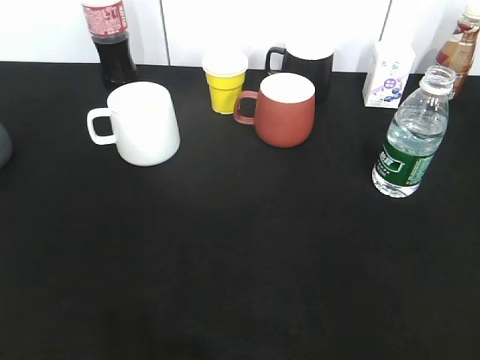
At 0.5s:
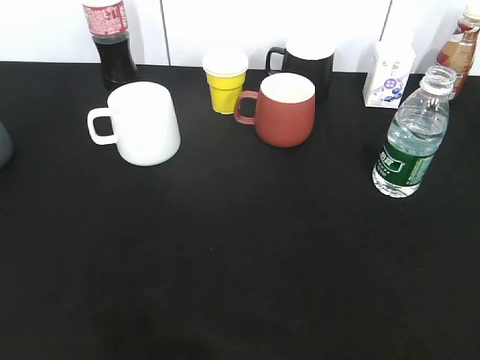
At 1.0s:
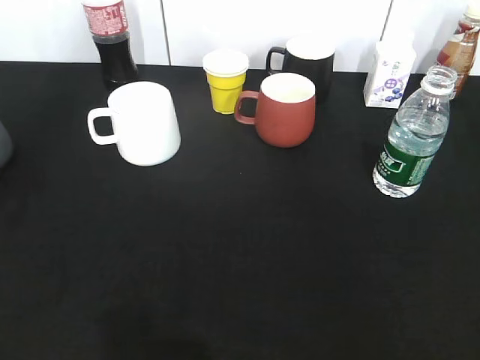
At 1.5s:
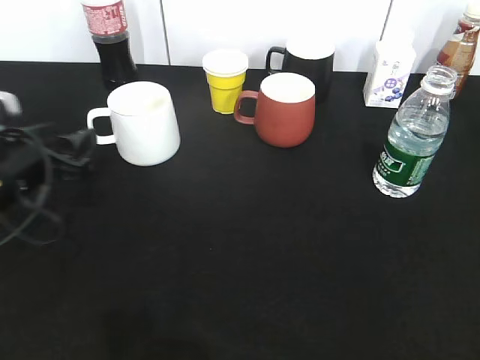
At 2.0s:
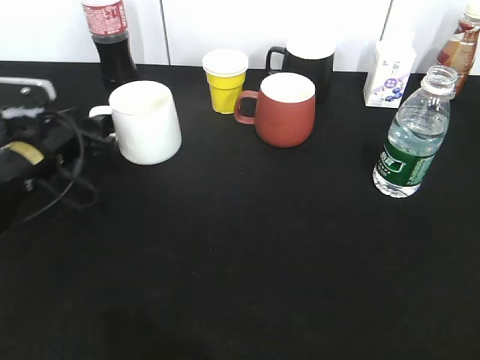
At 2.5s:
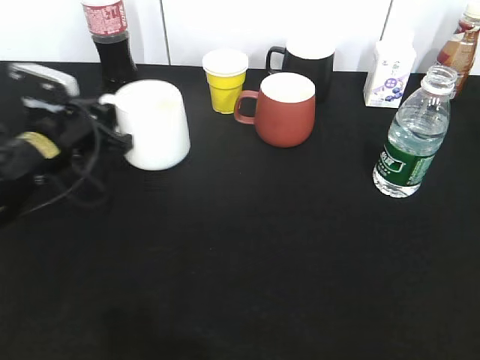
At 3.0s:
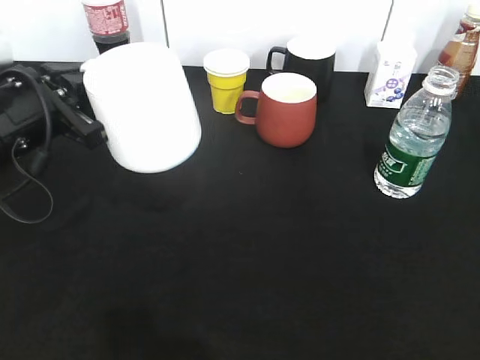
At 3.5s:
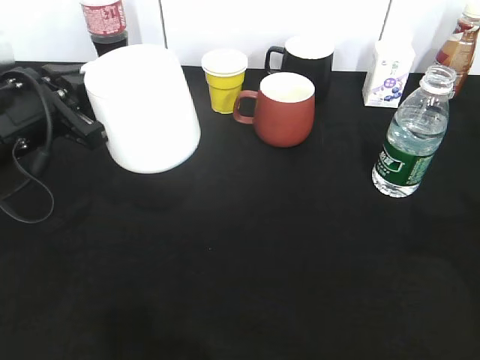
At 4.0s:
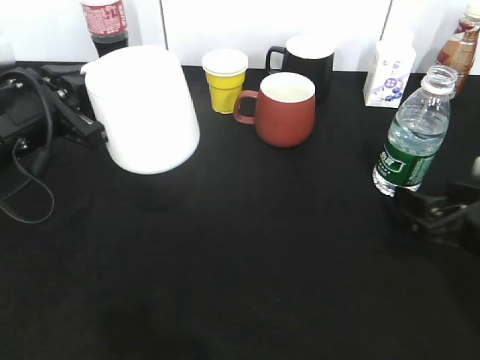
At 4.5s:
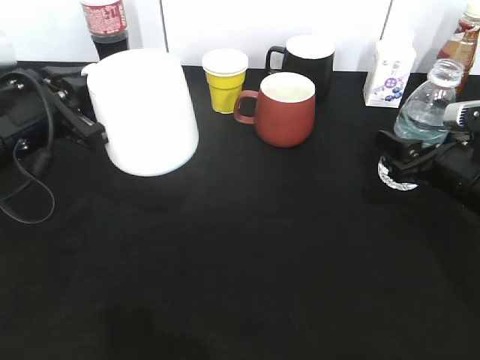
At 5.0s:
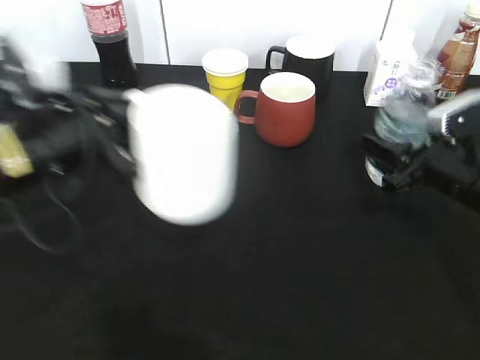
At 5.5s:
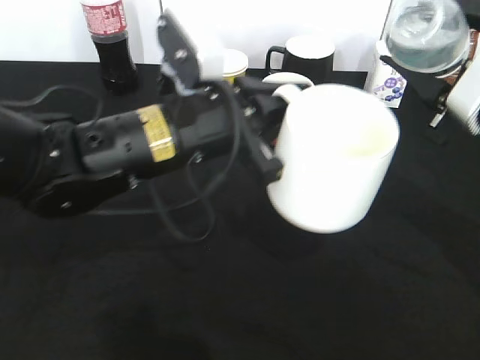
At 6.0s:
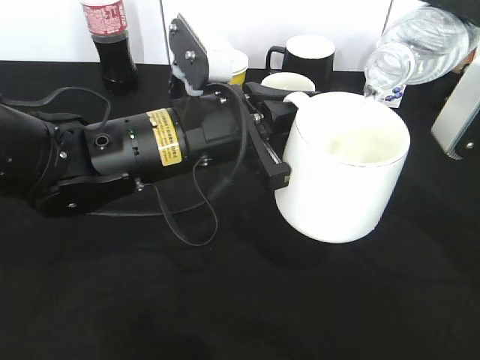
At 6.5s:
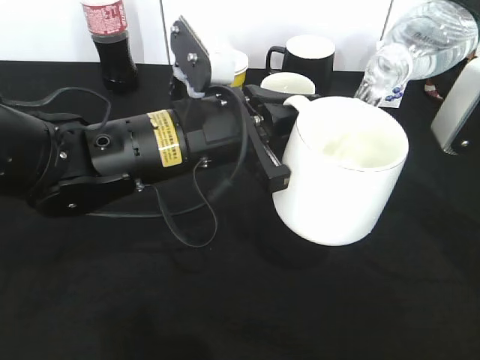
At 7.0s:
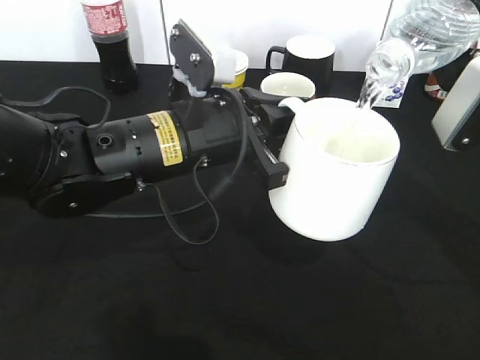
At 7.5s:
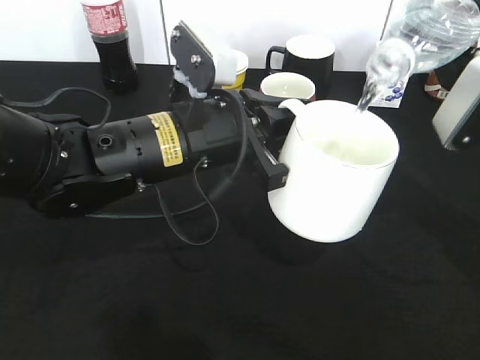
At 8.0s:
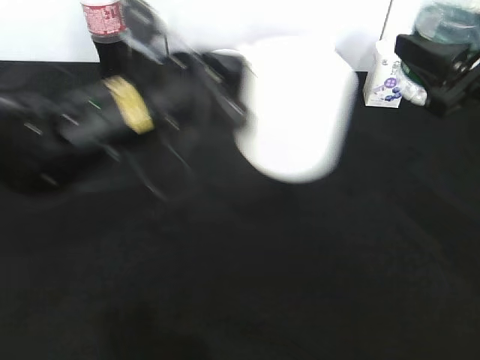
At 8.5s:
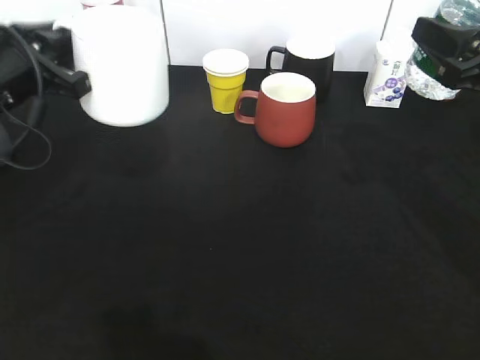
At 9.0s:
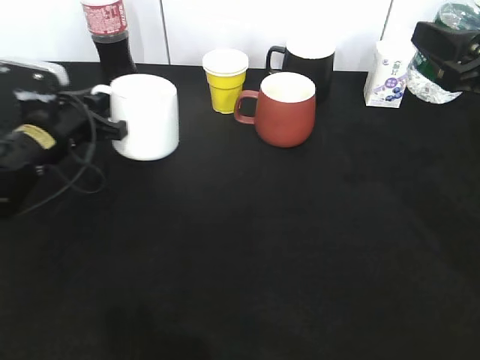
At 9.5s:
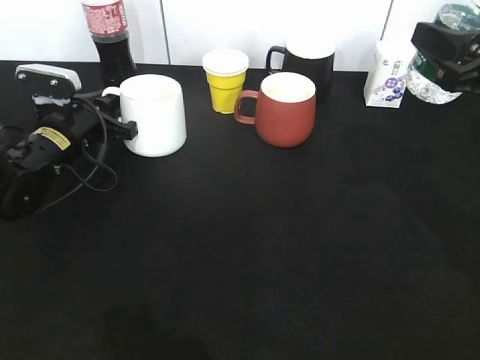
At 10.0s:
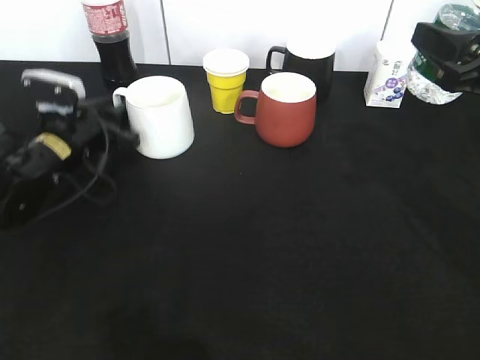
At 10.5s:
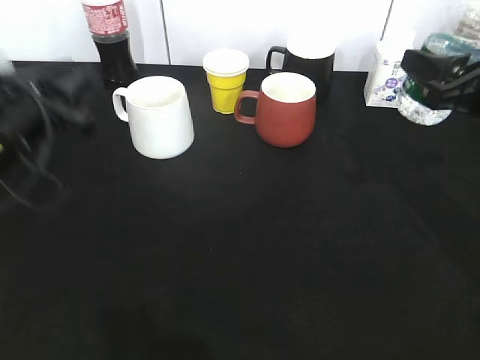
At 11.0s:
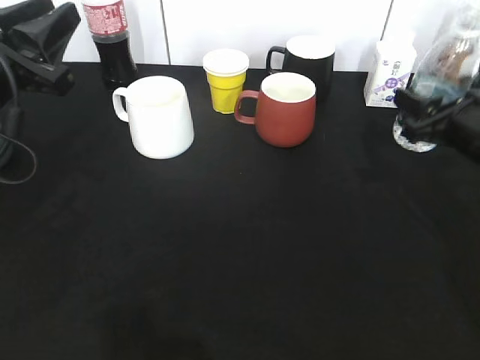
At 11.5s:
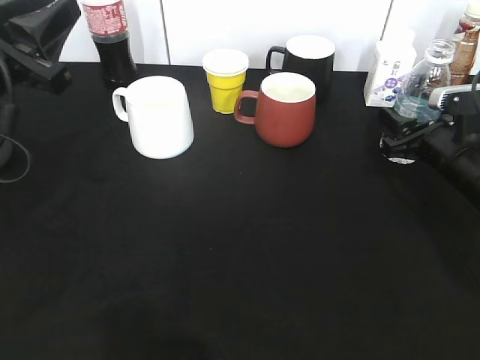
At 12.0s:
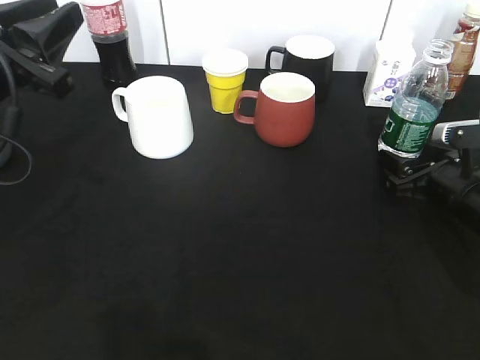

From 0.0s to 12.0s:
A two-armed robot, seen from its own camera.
Step, from 0.0s to 2.0s: Grasp the white cup with left gripper.
Step, from 2.5s to 3.0s: Lift the white cup with left gripper.
Step, from 3.5s to 4.5s: Grasp the bottle with water with right gripper.
Step, from 5.0s to 8.0s: Pour the water from bottle to cup with right gripper.
Step, from 8.5s to 10.0s: Place the white cup on the table with left gripper.
Step, from 10.5s to 11.5s: Place the water bottle on the table with right gripper.
From 0.0s to 2.0s: The left gripper moves forward and downward, roughly 35 cm.
From 2.0s to 4.0s: The left gripper heads upward and backward, covering some 10 cm, and closes. Meanwhile the right gripper goes about 30 cm forward and downward, and opens.
From 4.0s to 6.0s: The left gripper heads to the right, covering some 15 cm, while the right gripper shifts some 15 cm upward, and closes its fingers.
From 6.0s to 8.0s: The left gripper ends up roughly 5 cm from where it was.
From 8.0s to 10.0s: The left gripper heads to the left, downward and forward, covering some 20 cm, and opens up.
From 10.0s to 12.0s: The right gripper travels downward by some 15 cm, and opens; the left gripper goes about 20 cm upward and backward.

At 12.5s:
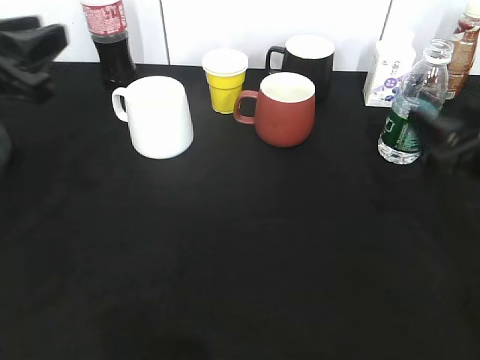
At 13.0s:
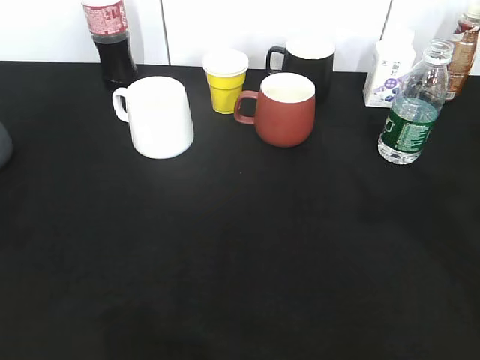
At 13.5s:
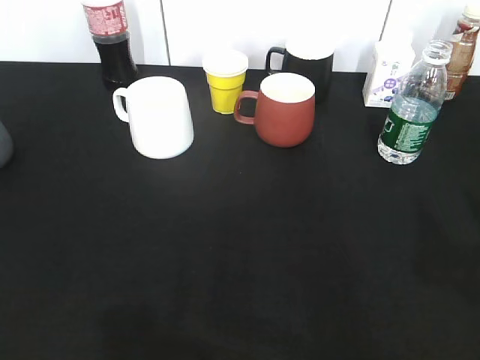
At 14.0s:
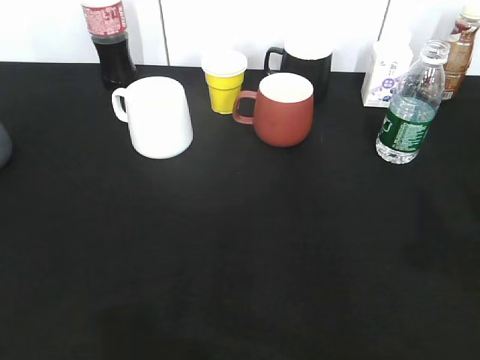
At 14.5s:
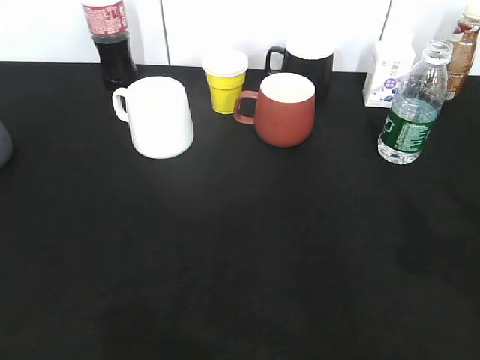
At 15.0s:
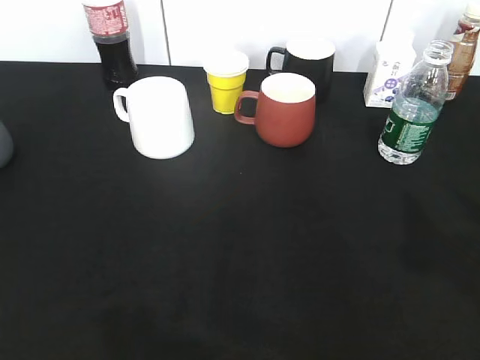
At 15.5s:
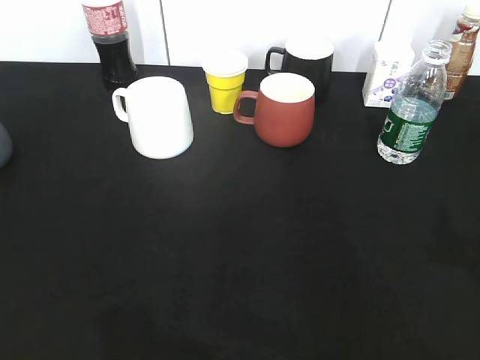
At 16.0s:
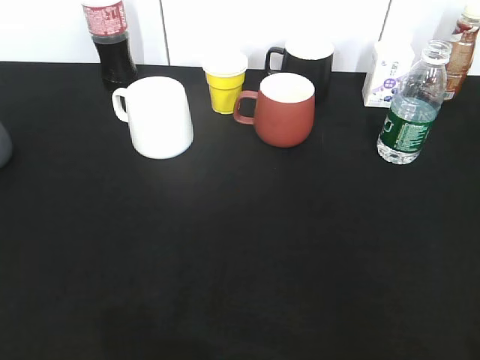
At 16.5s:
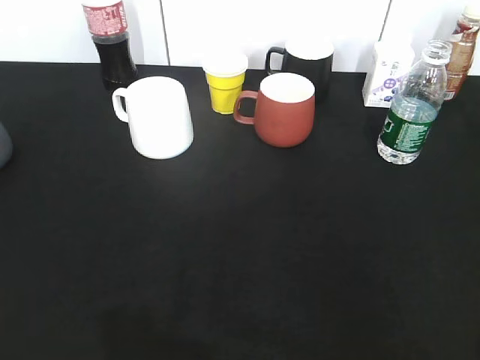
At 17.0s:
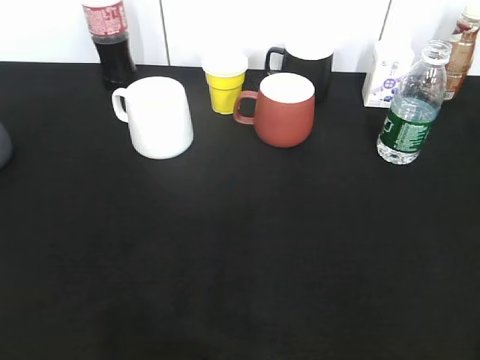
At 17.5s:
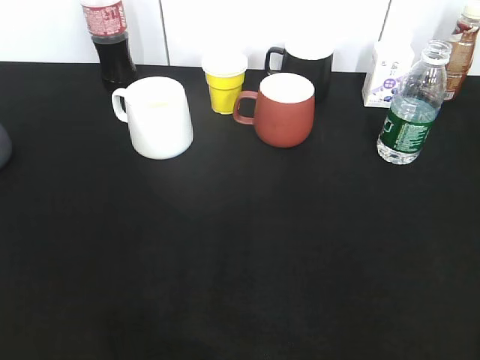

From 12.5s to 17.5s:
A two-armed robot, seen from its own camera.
From 12.5s to 15.0s: The left gripper moves backward, approximately 25 cm. Meanwhile the right gripper goes approximately 20 cm upward and backward.
From 15.0s to 17.5s: The right gripper shifts some 10 cm backward.

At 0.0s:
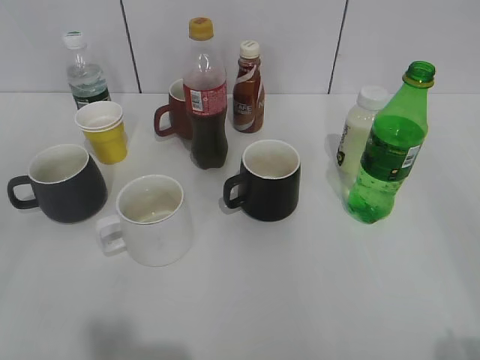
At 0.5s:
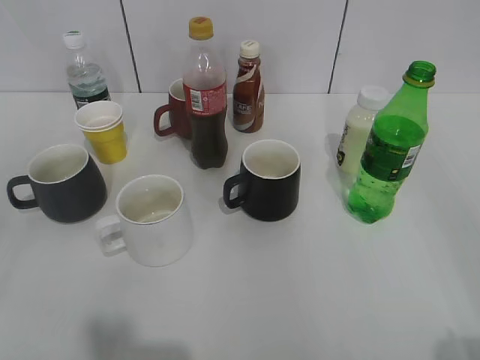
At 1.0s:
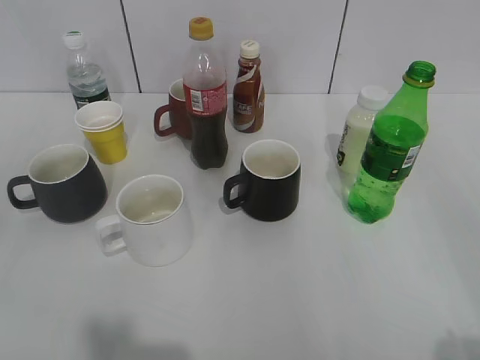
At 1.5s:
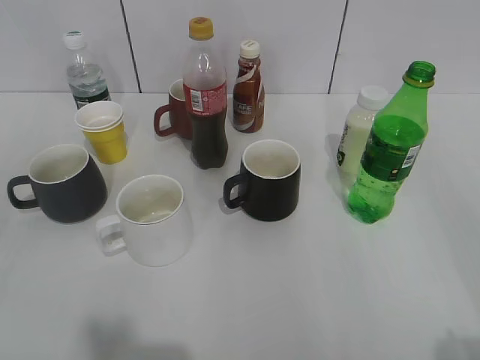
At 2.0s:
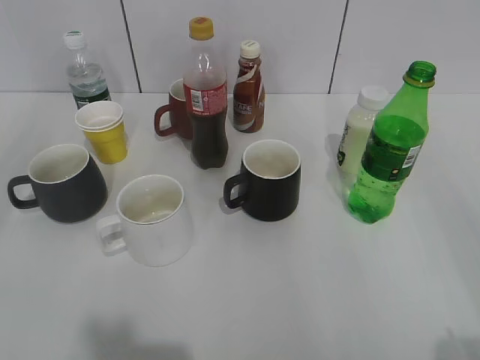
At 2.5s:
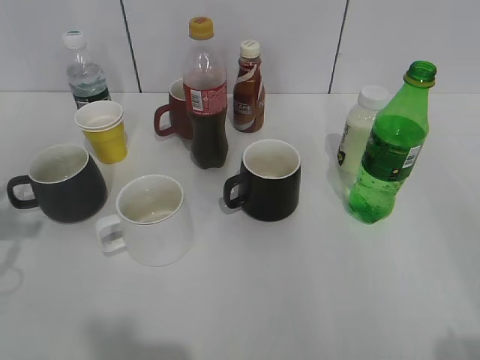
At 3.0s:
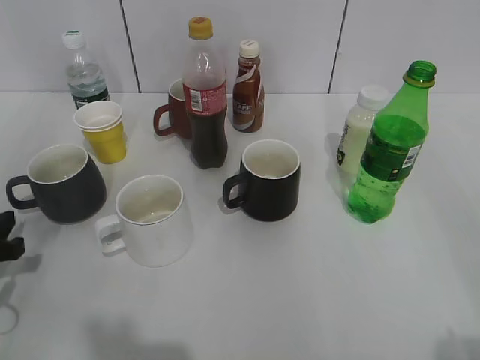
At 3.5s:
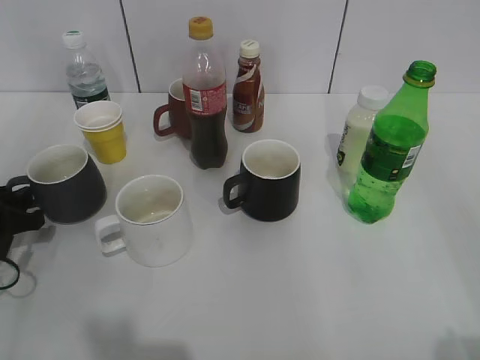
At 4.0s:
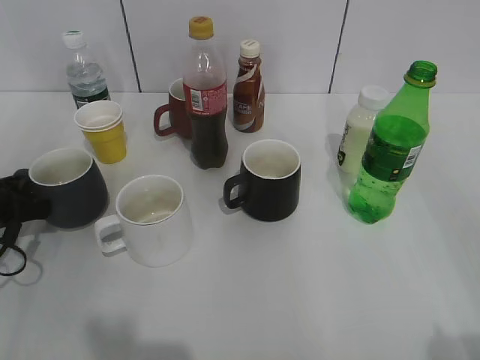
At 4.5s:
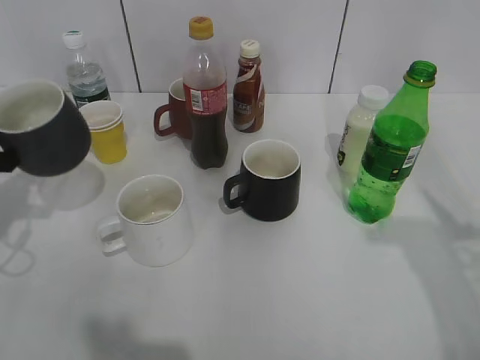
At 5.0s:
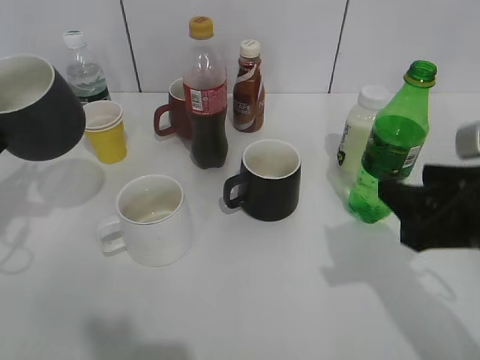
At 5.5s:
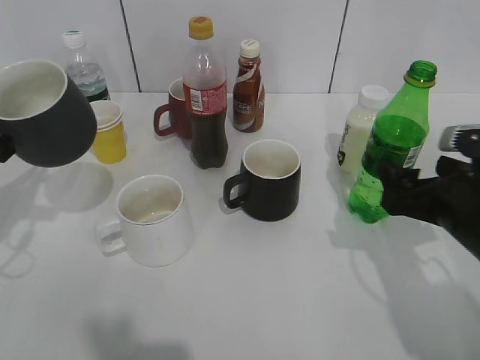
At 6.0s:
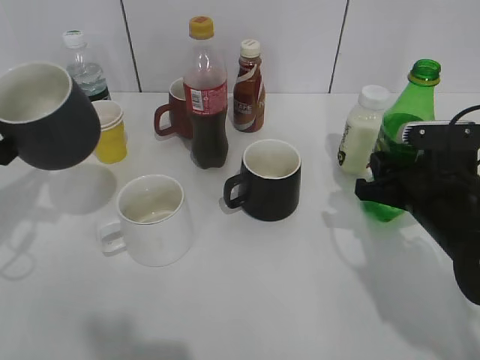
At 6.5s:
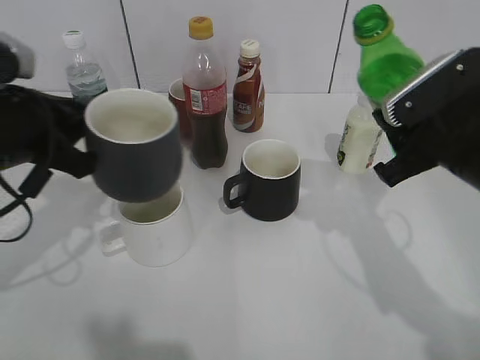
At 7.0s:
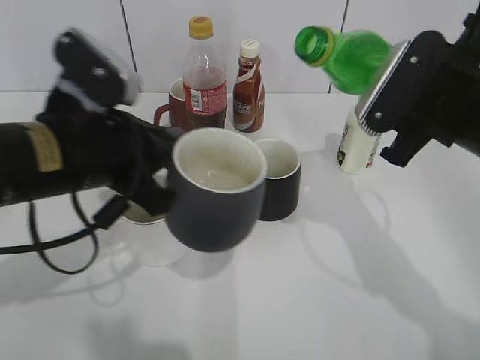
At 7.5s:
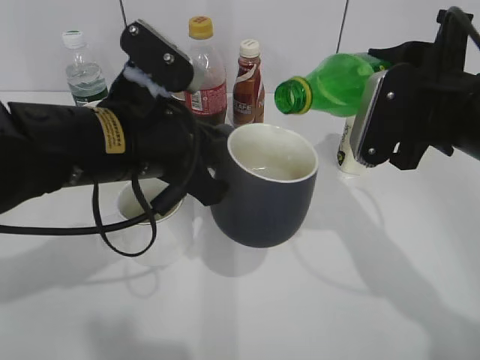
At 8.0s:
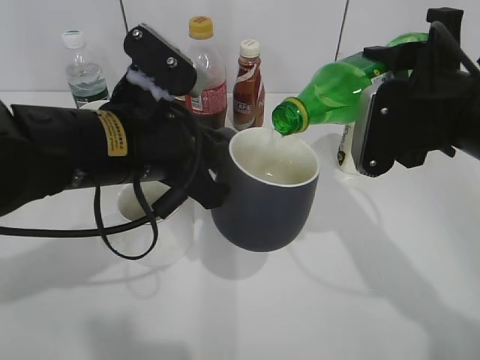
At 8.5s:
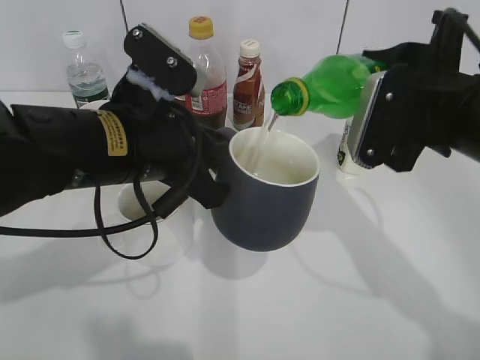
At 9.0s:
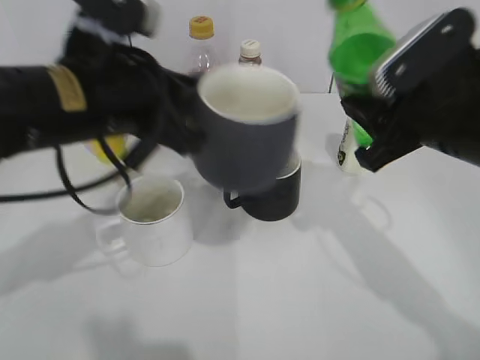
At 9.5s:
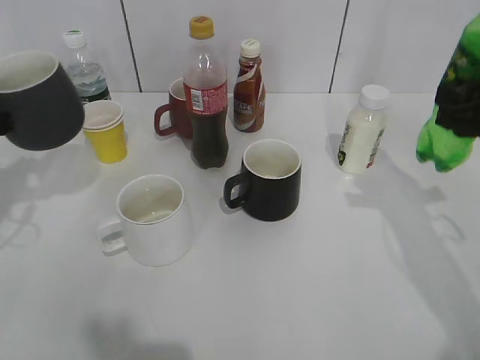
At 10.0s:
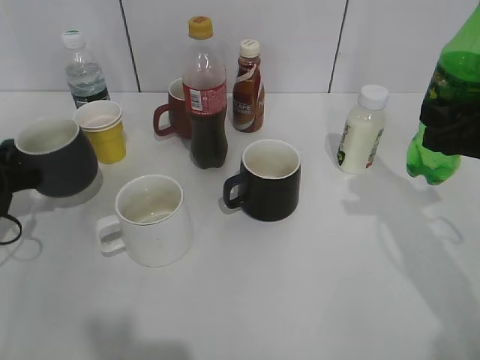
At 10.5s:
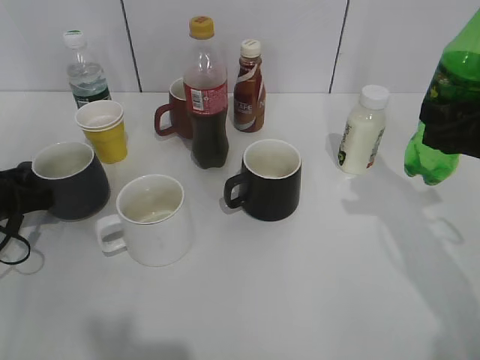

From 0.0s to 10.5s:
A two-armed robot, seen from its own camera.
Step, from 3.0s to 3.5s: Grasp the grey cup with left gripper.
Step, from 4.0s to 4.5s: Lift the grey cup with left gripper.
Step, from 5.0s to 5.5s: Grasp the bottle with sprite with right gripper.
Step, from 6.5s to 8.5s: Pour the sprite from bottle to cup with right gripper.
From 2.0s to 4.0s: The left gripper is displaced downward and forward by about 35 cm, and closes.
From 4.0s to 6.5s: The left gripper shifts approximately 20 cm upward and to the right, while the right gripper heads forward, covering roughly 25 cm, and closes.
From 6.5s to 8.5s: The left gripper goes some 10 cm to the right.
From 8.5s to 10.5s: The left gripper moves to the left and downward, some 25 cm; the right gripper goes roughly 10 cm to the right.
